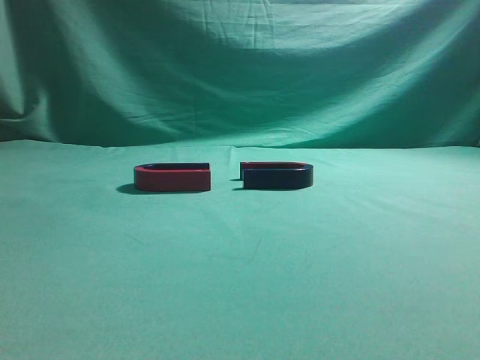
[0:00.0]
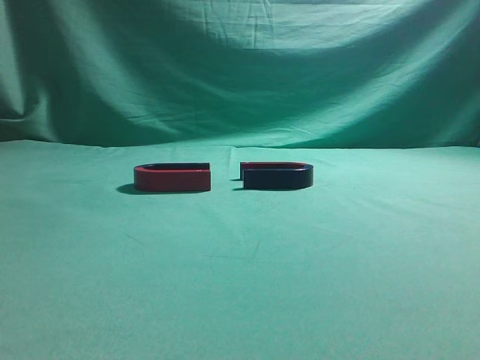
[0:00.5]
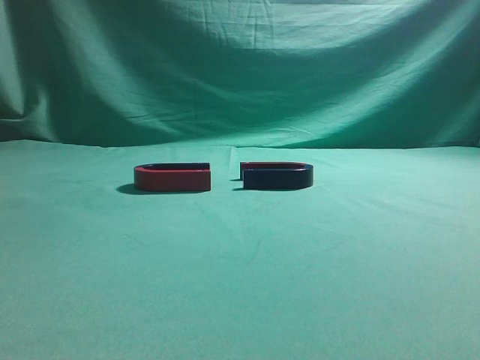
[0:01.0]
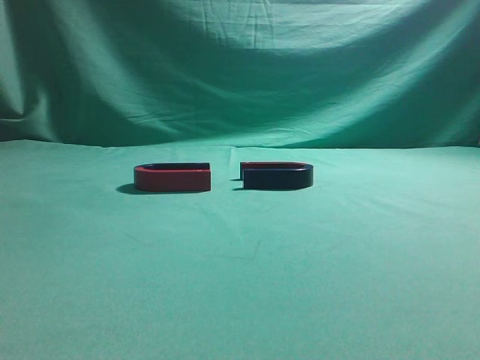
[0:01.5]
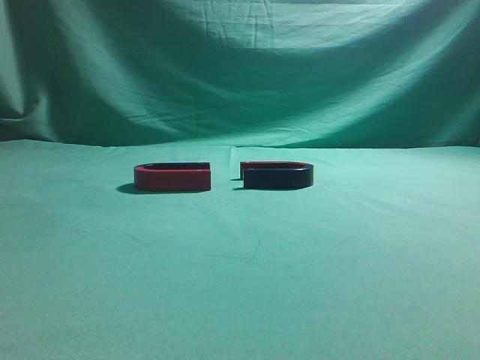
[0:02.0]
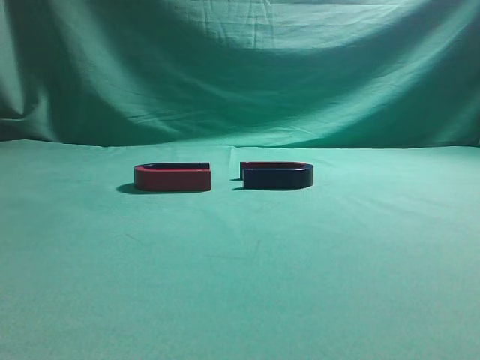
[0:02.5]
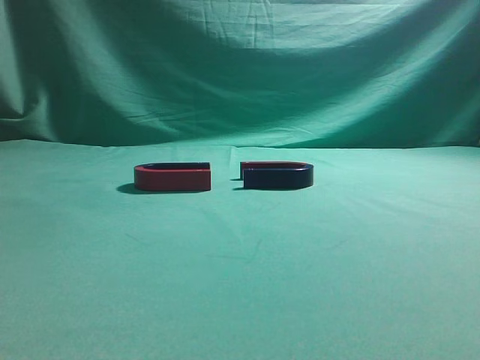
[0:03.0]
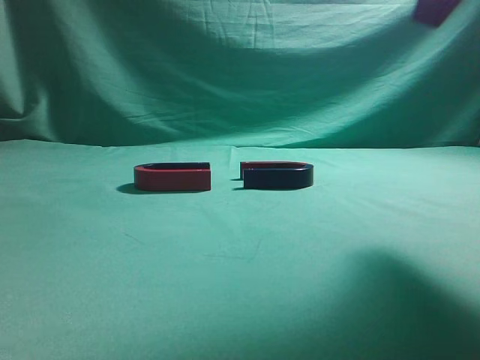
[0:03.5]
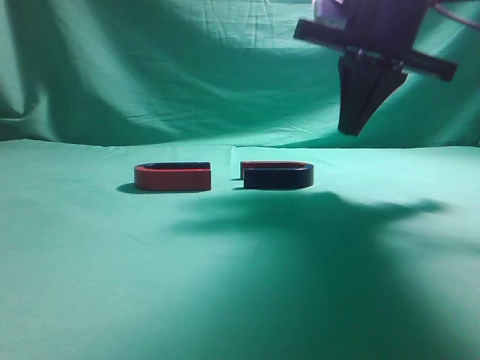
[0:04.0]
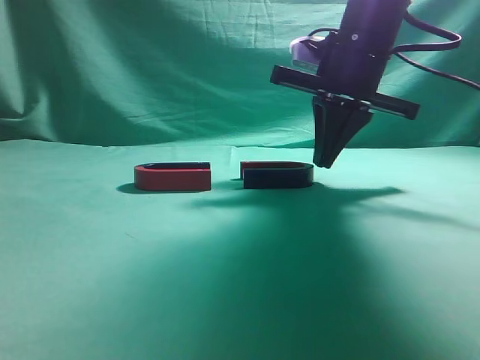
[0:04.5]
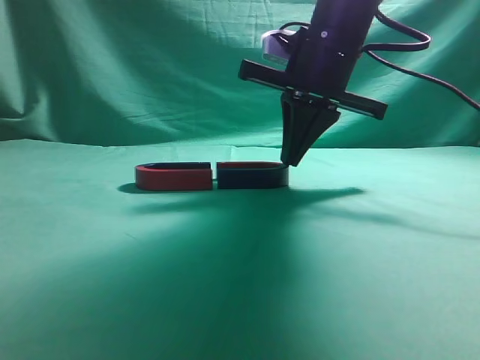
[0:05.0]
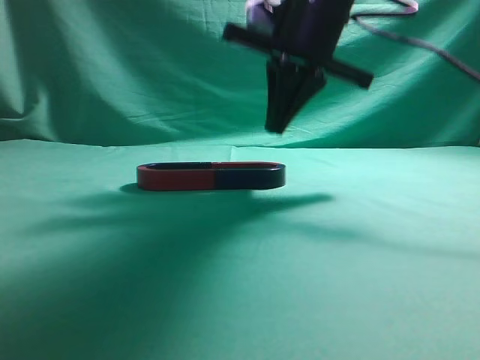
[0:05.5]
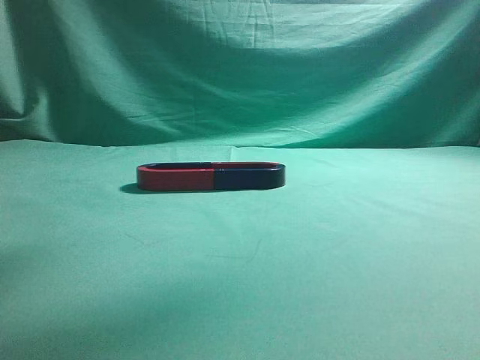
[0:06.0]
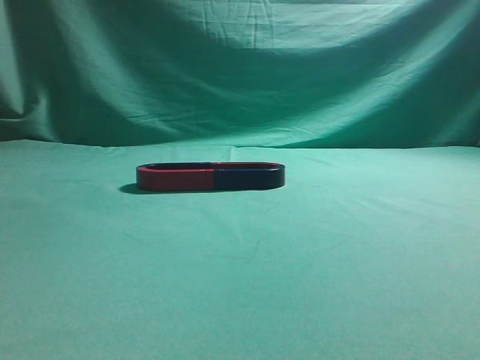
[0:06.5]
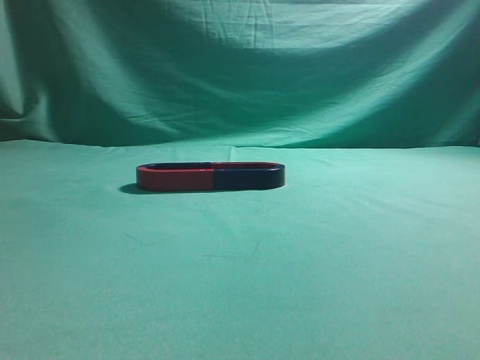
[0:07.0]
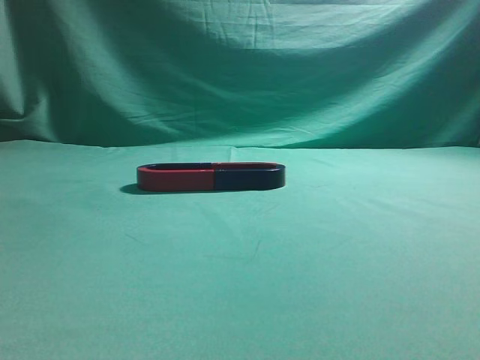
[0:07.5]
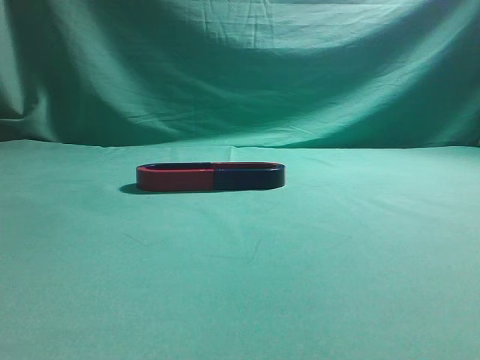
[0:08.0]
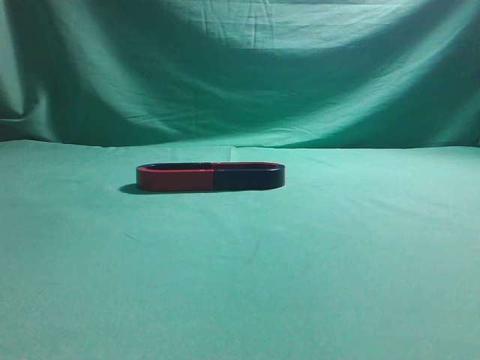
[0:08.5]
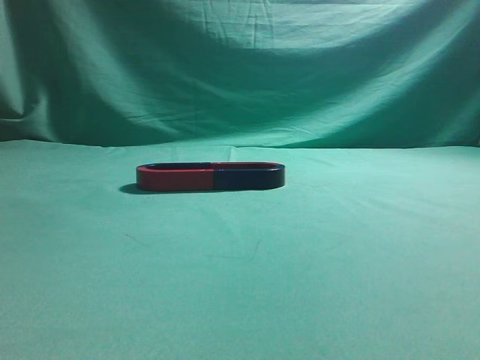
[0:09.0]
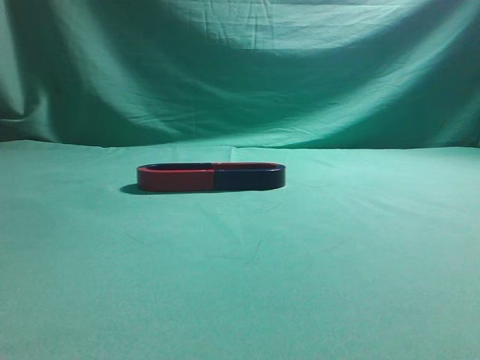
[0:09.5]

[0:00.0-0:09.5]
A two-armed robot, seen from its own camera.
Task of the whole recording: push the magnet on the table from its original position to another position.
Step, 0:00.0 to 0:05.0: Push the magnet on the right to connect the magnet on the left.
0:02.0 to 0:04.0: The right gripper is displaced forward and to the left by approximately 35 cm.
0:04.0 to 0:05.5: The right gripper heads to the left, covering approximately 5 cm.
0:05.5 to 0:07.5: The right gripper heads backward and to the right, covering some 35 cm.

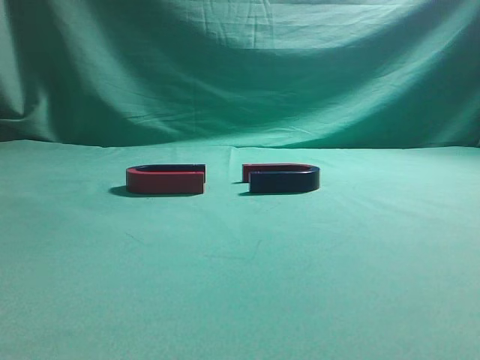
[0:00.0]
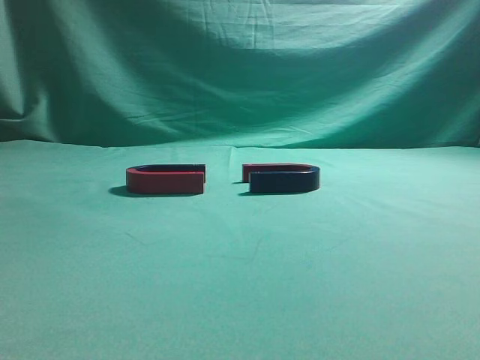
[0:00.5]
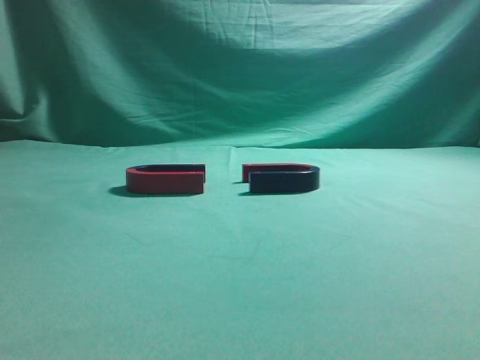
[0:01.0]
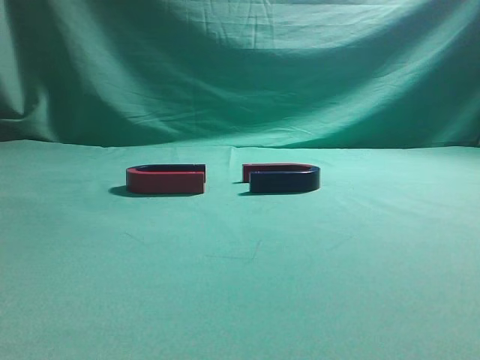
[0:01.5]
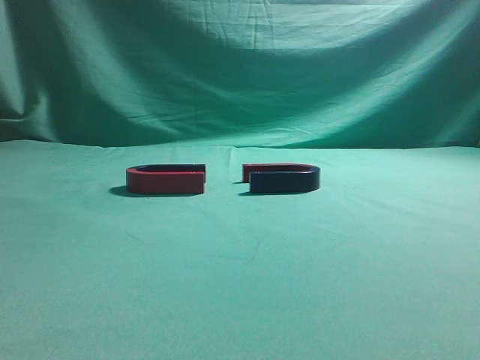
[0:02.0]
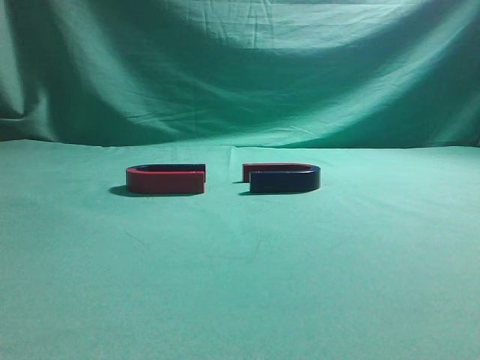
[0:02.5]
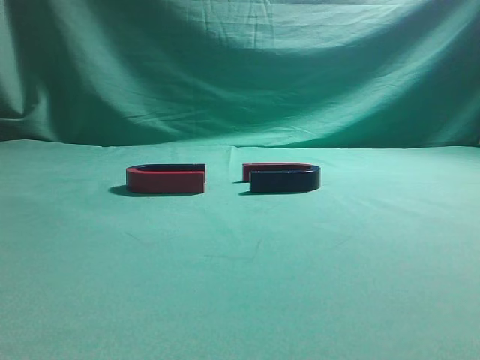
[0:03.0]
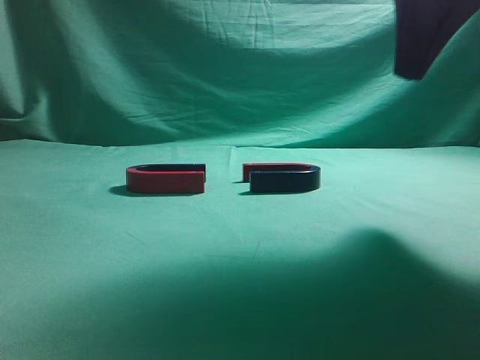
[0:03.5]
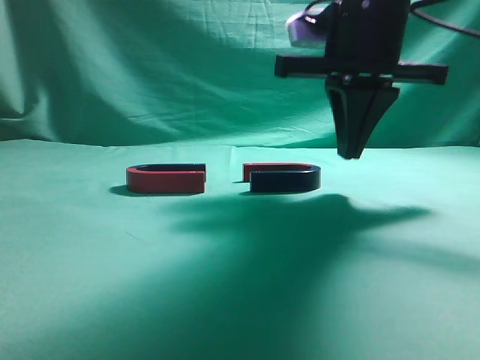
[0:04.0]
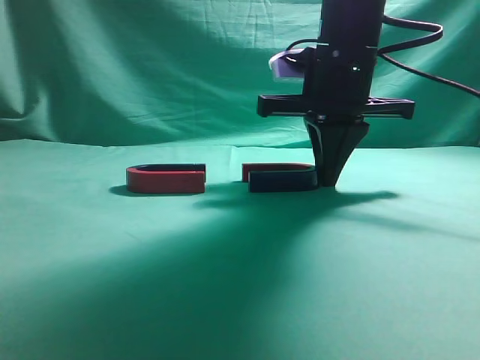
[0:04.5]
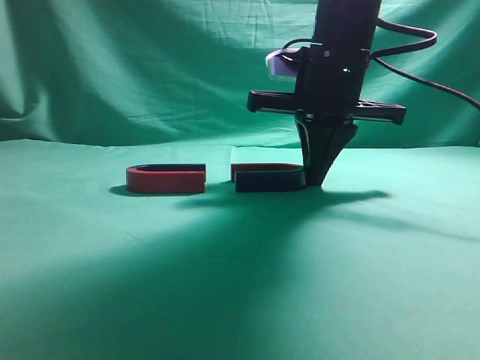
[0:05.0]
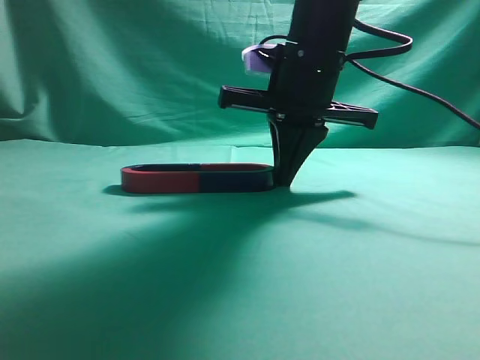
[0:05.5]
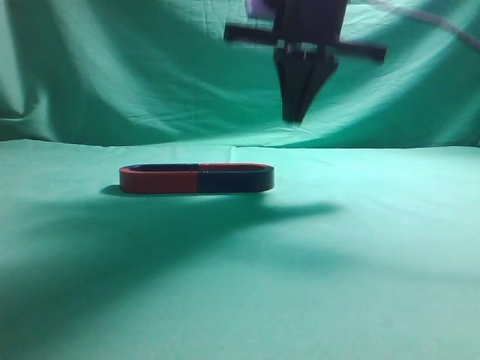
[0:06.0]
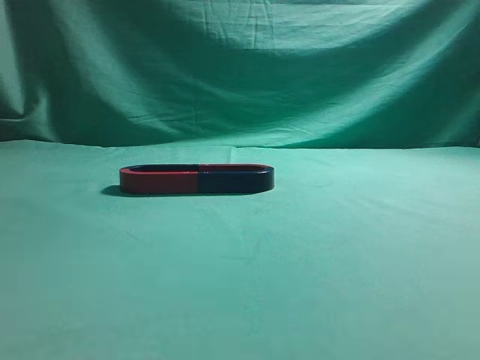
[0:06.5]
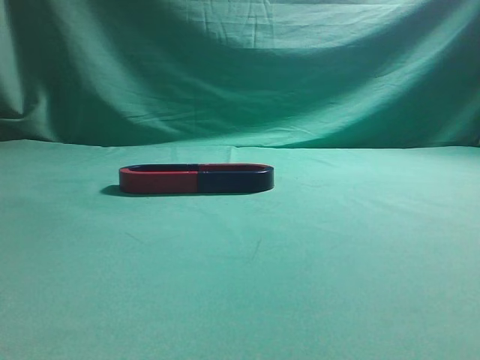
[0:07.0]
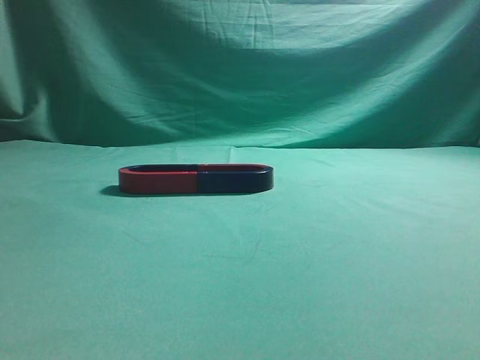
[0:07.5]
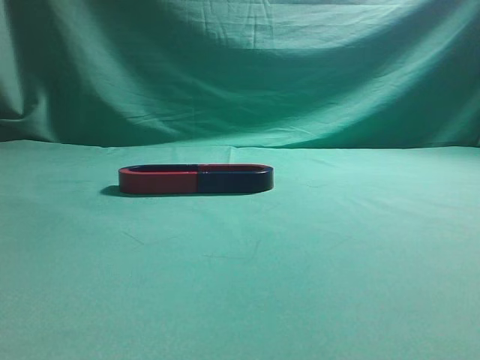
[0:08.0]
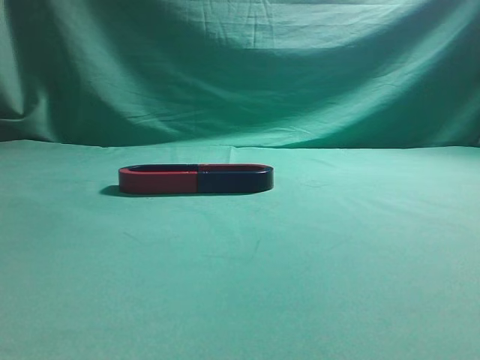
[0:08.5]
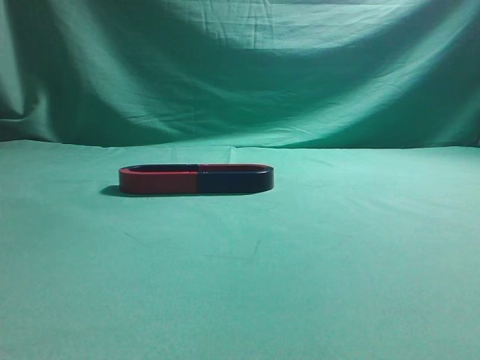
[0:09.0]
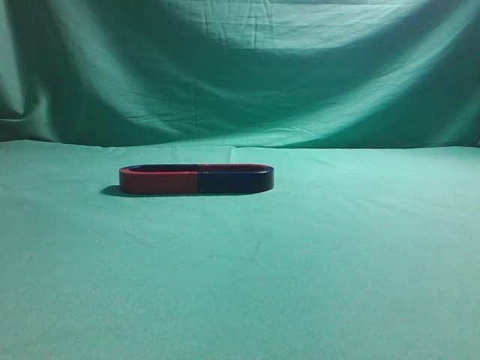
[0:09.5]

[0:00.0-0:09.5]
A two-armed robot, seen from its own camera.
Task of the whole recording: push the magnet on the table from its original position to another position.
Step, 0:00.0 to 0:05.5: Push the magnet on the right to connect the magnet on the left.
0:02.0 to 0:04.0: The right gripper goes roughly 35 cm forward and to the left.
0:04.0 to 0:05.5: The right gripper moves approximately 5 cm.
0:05.5 to 0:07.5: The right gripper is displaced backward, upward and to the right by some 50 cm.
